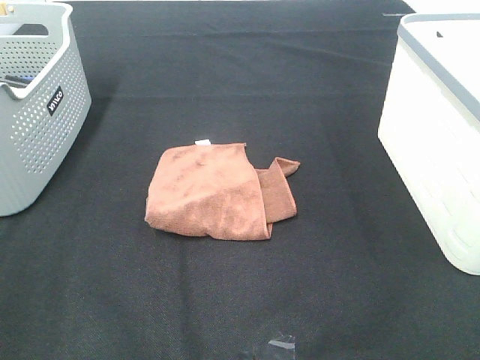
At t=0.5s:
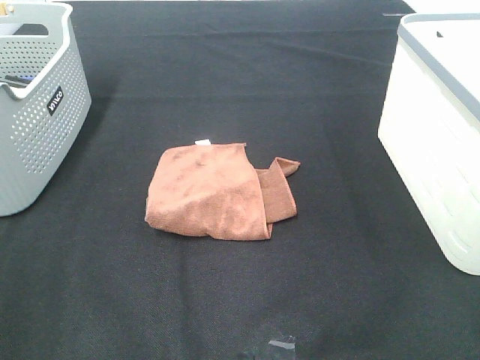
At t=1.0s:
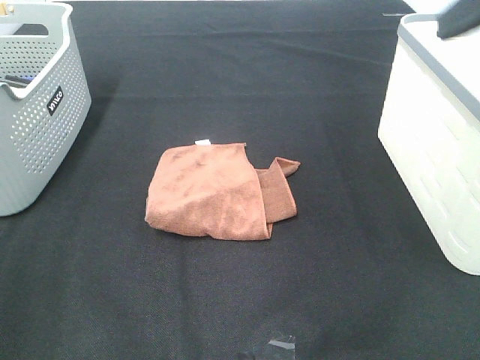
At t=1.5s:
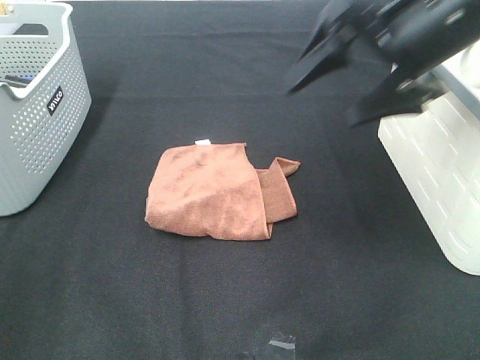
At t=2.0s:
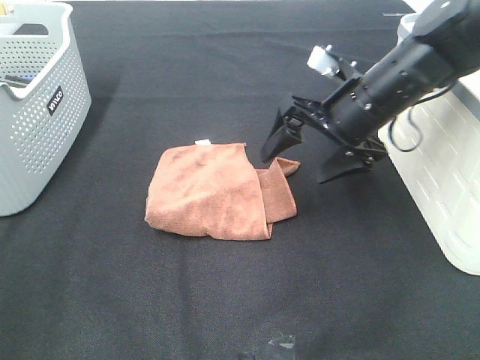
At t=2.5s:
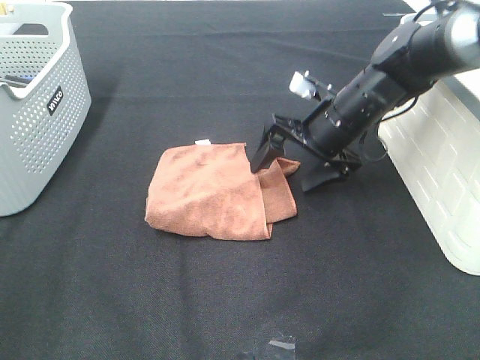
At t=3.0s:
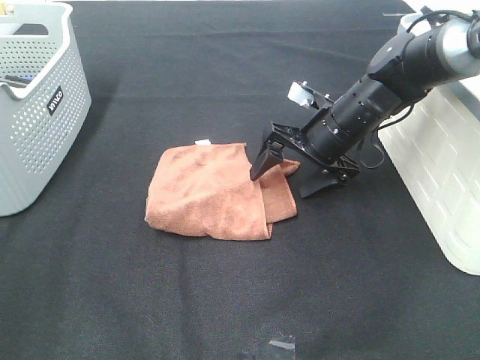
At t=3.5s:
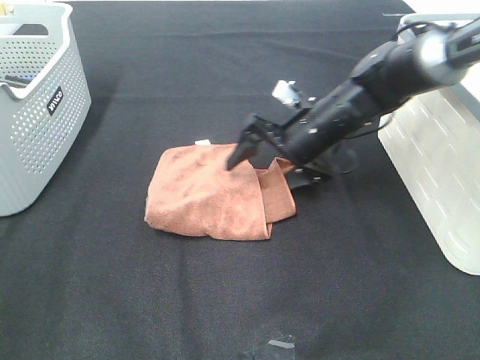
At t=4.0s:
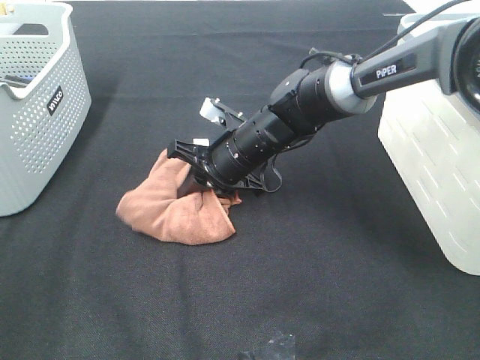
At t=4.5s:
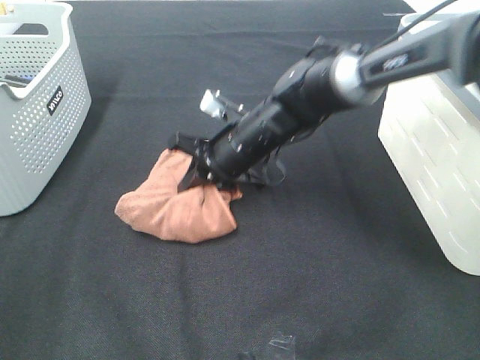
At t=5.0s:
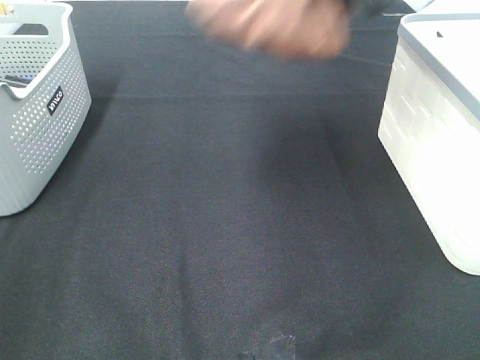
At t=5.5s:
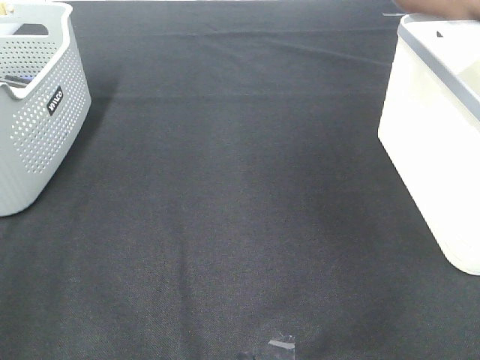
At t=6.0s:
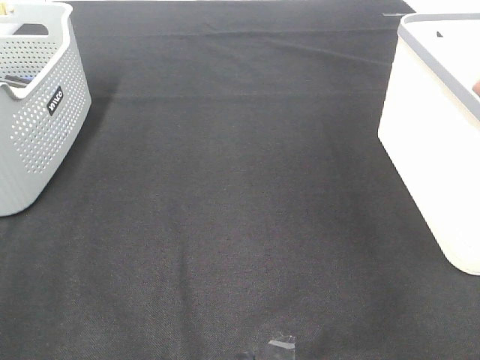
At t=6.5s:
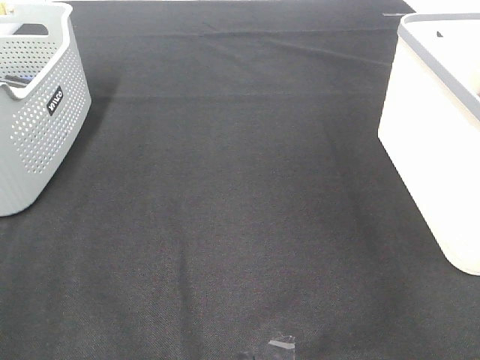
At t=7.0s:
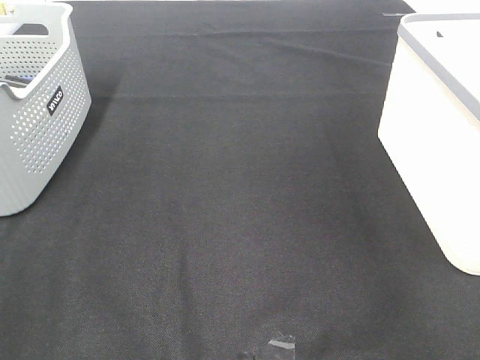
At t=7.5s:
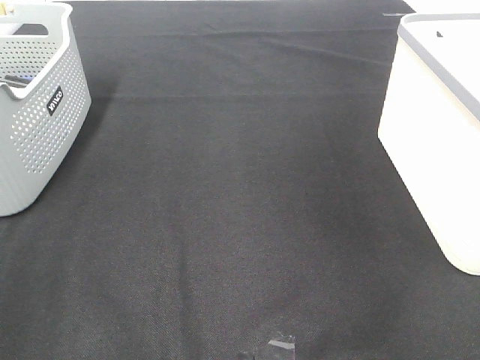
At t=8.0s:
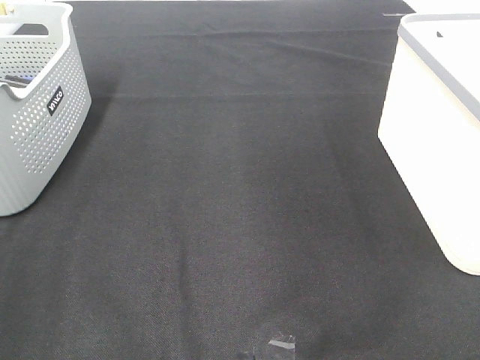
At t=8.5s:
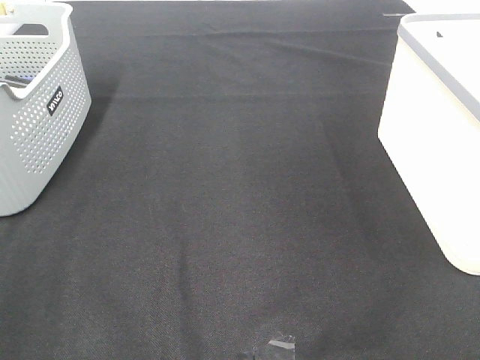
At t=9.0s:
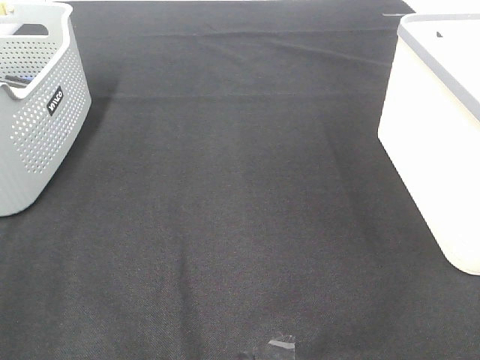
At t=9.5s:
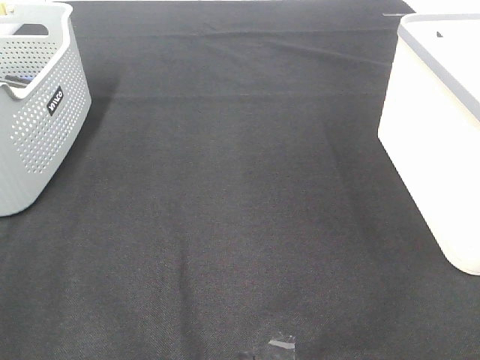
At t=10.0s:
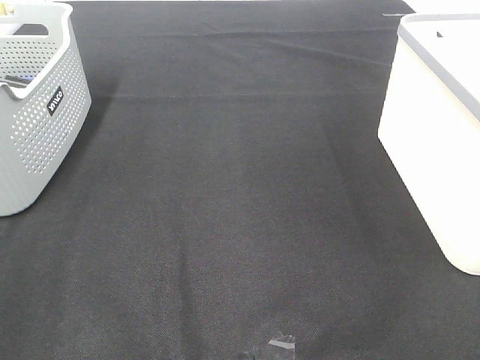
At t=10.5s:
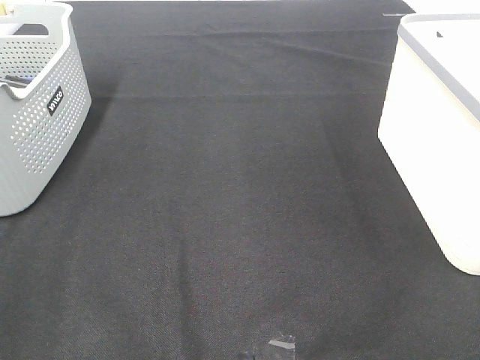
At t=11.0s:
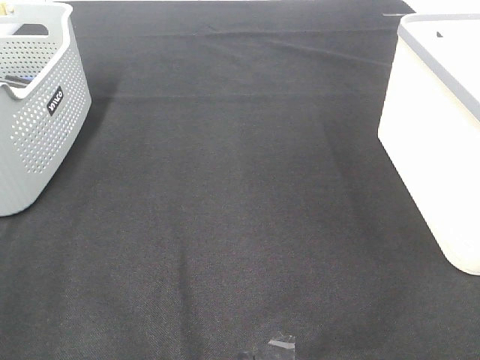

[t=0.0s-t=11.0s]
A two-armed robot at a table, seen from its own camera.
Step, t=0.0s to t=4.0s: Right hand: grab the folded brown towel.
Step, t=4.5s to t=6.5s: Right hand: place the brown towel in right basket.
t=0.0s to t=2.0s: The right gripper travels forward and to the left by some 40 cm.
t=2.0s to t=3.5s: The right gripper goes about 10 cm downward.
t=3.5s to t=5.5s: The right gripper is displaced upward and to the right by some 40 cm, and closes up.
t=5.5s to t=7.5s: The right gripper reaches roughly 10 cm downward, then returns, and opens.
t=9.0s to t=11.0s: Both grippers stay put.

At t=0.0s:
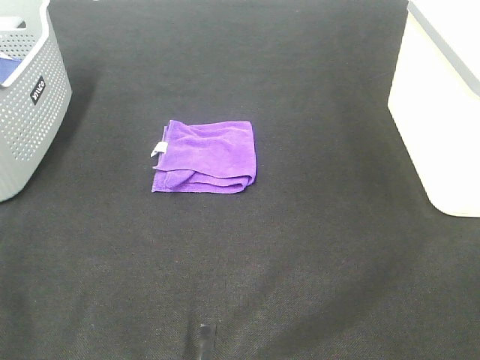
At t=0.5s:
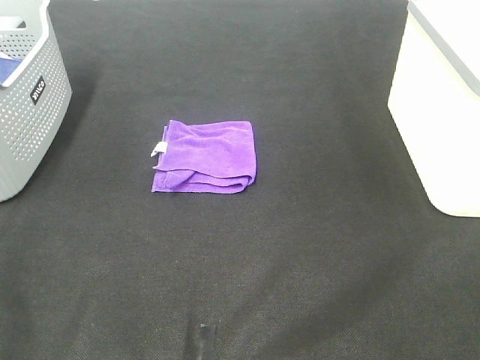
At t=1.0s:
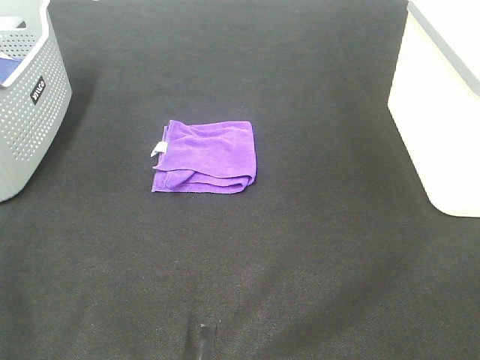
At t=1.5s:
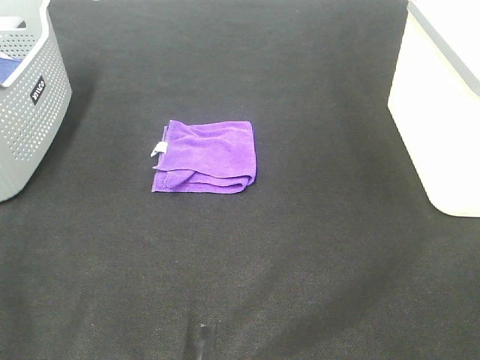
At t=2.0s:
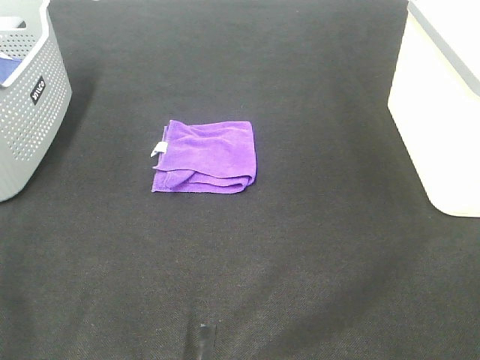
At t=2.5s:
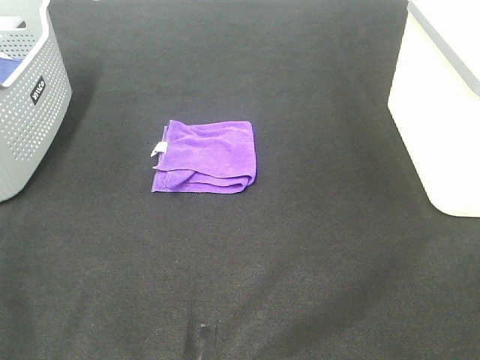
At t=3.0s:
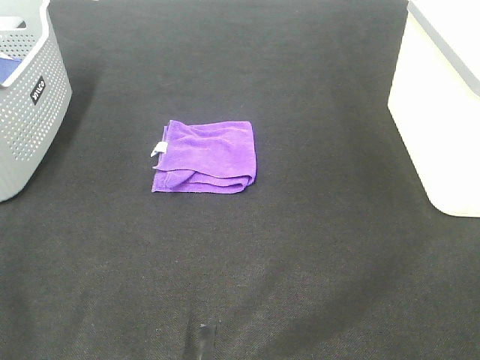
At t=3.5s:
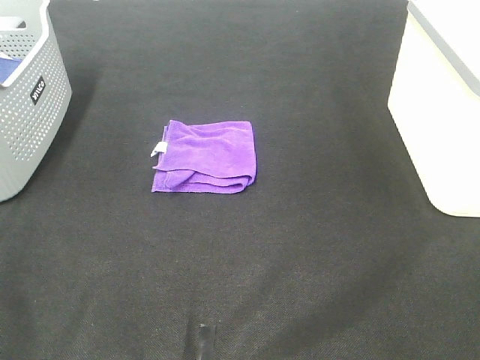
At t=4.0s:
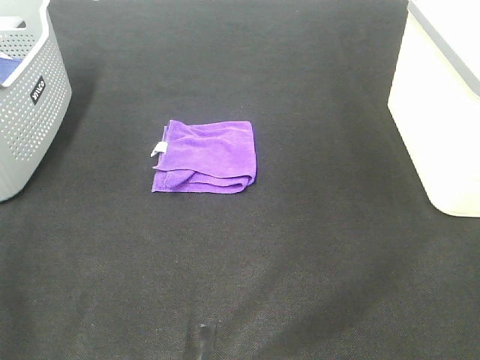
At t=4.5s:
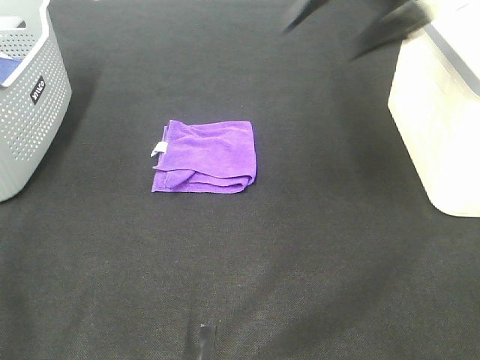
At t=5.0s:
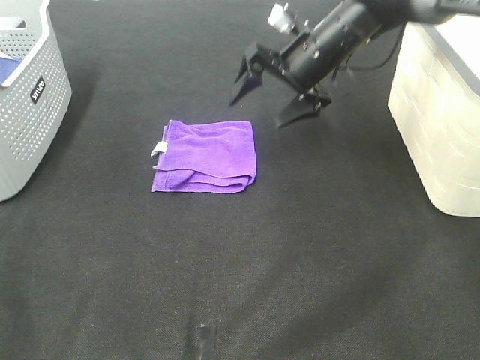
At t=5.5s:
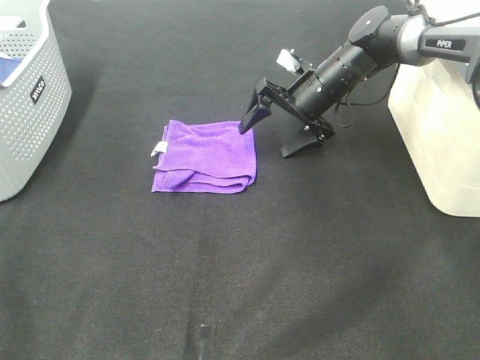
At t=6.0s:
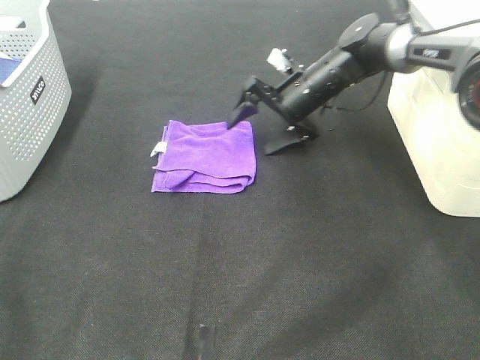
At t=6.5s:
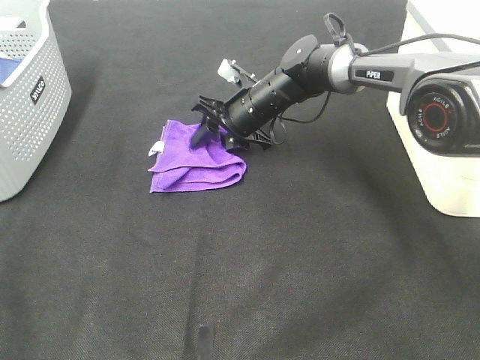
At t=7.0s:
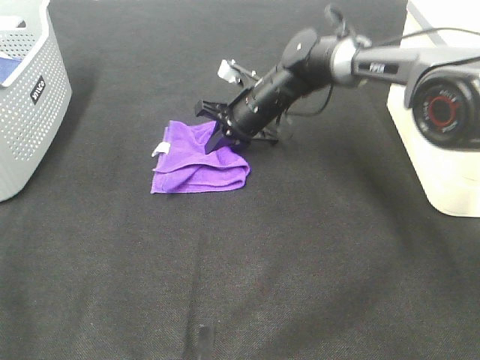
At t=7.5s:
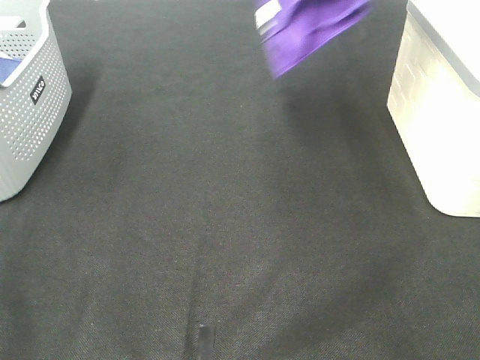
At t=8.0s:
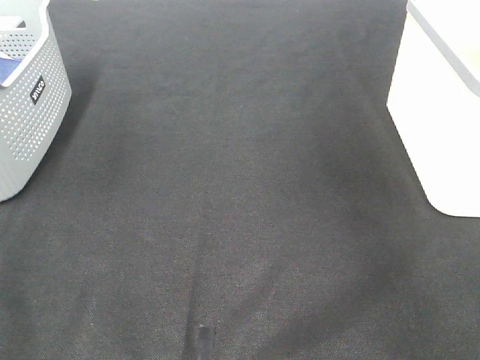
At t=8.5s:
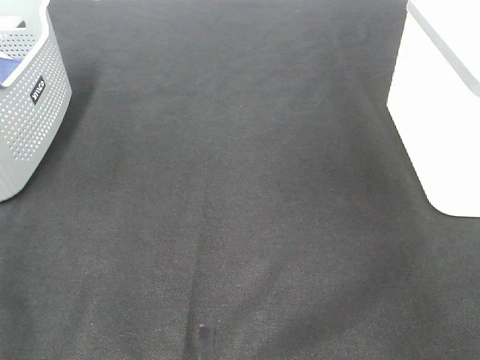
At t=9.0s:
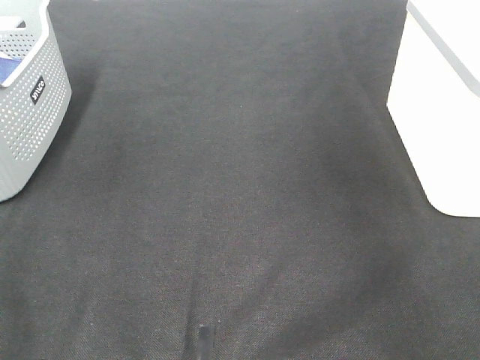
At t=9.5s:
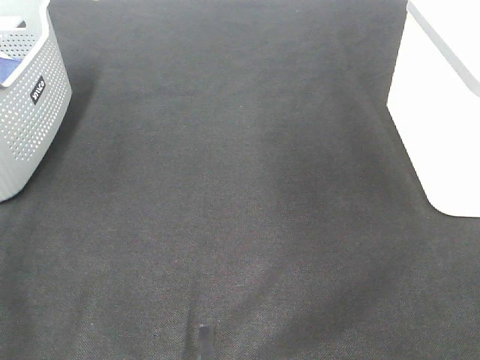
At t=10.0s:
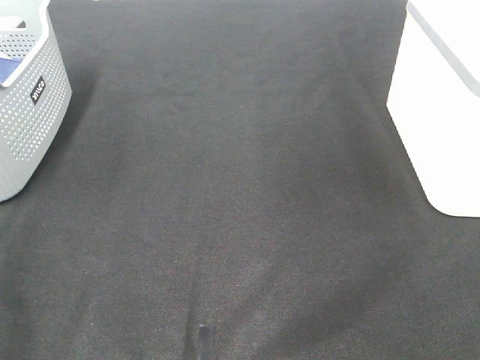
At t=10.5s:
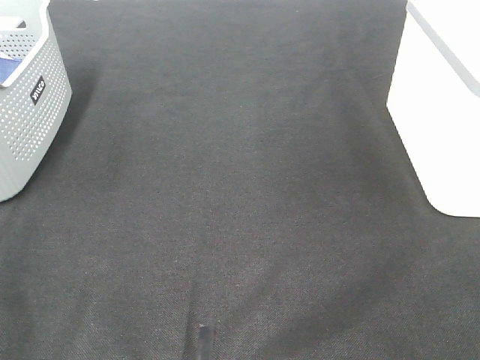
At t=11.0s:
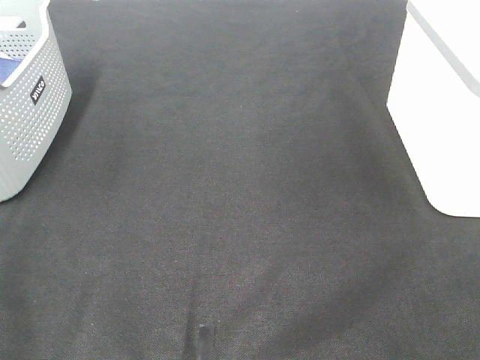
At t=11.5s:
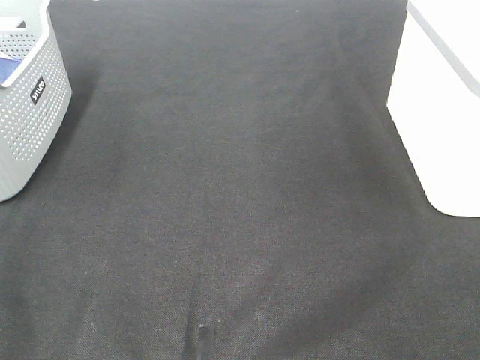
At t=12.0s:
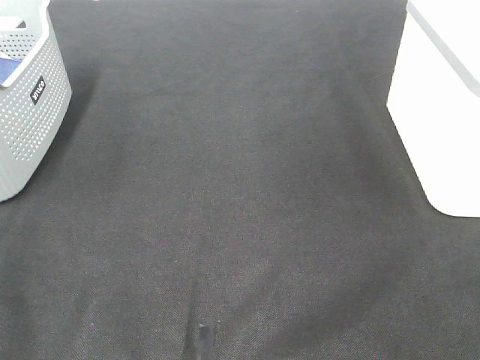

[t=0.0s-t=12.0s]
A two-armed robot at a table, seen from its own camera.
Step, t=0.0s to t=6.5s: Right hand: grab the folded purple towel.
Step, t=7.0s to t=8.0s: Right hand: place the purple towel in right basket.
t=0.0s to t=2.0s: Neither gripper changes place.
t=4.0s to t=6.0s: The right gripper goes about 50 cm downward, forward and to the left.
t=6.0s to t=8.0s: The right gripper heads upward and to the right, covering approximately 40 cm, and closes.

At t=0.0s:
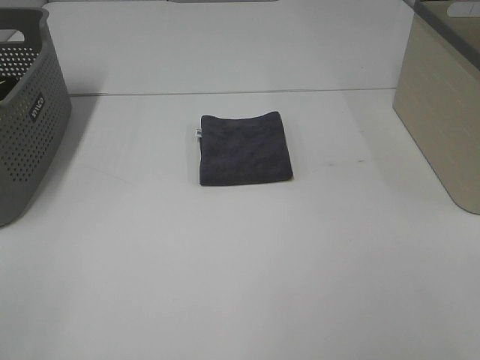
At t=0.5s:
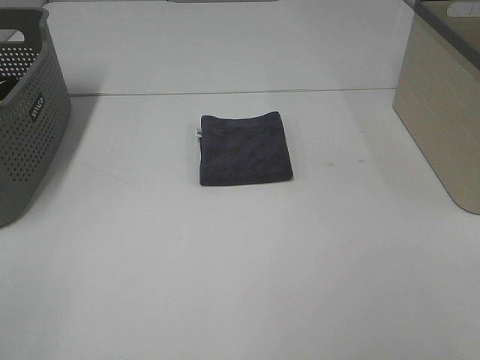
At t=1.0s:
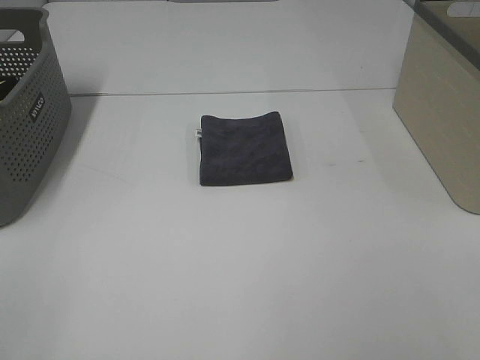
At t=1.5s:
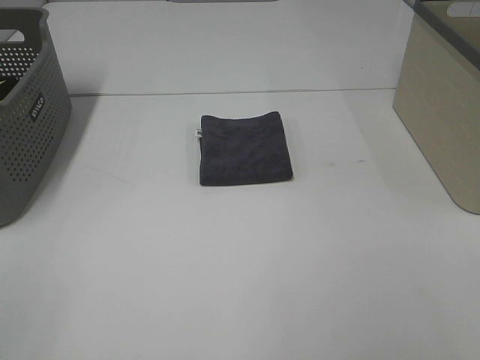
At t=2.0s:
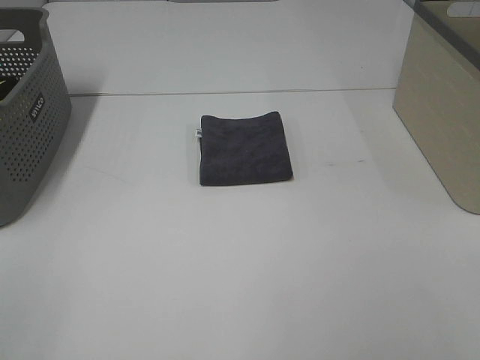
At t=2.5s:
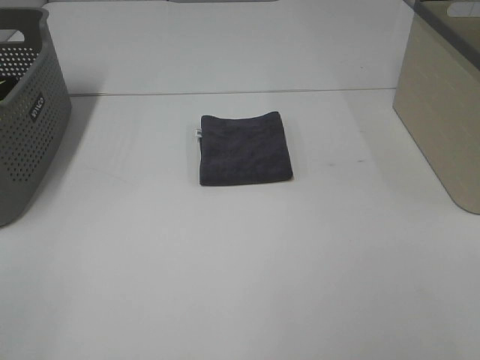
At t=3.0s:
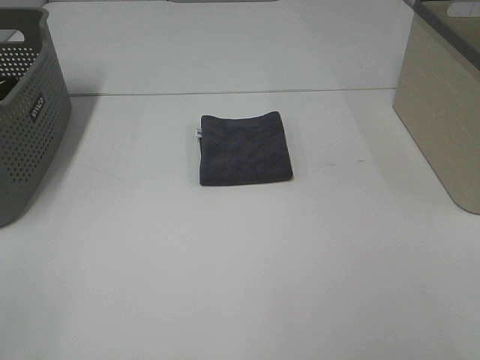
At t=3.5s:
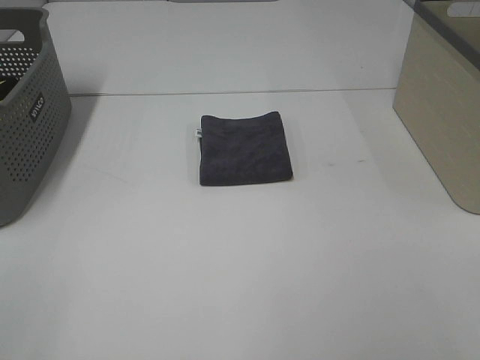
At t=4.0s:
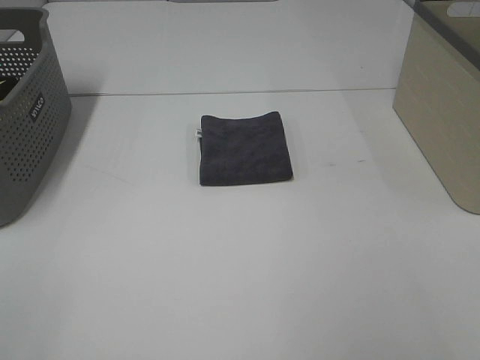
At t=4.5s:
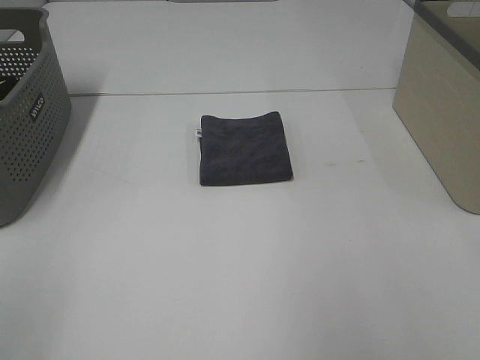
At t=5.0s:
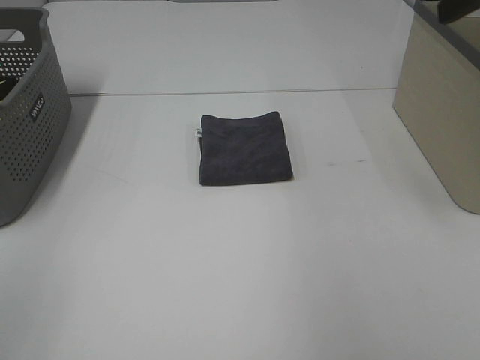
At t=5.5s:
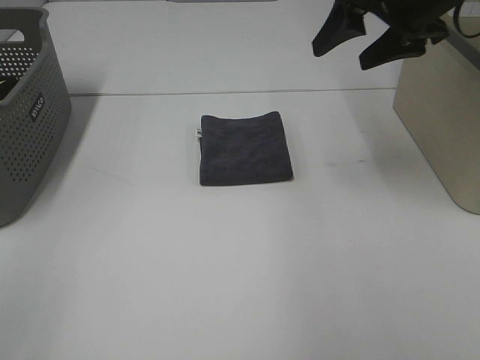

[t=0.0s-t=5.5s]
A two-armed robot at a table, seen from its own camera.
t=0.0s to t=3.5s: Both grippers stay put.
t=3.5s to t=5.5s: The right gripper goes some 40 cm forward.
